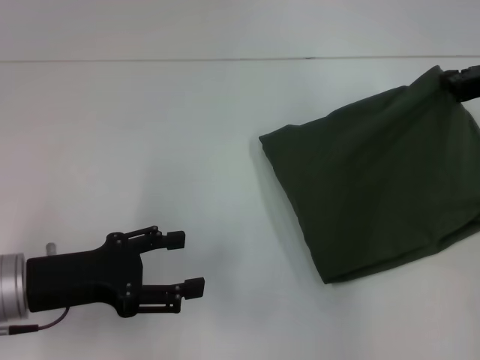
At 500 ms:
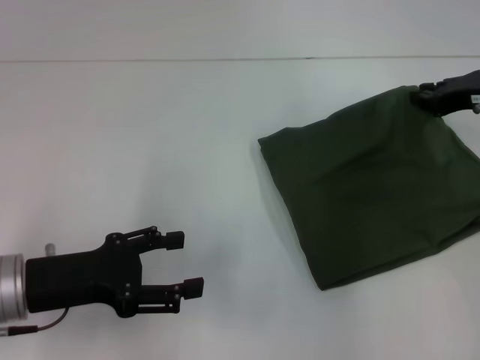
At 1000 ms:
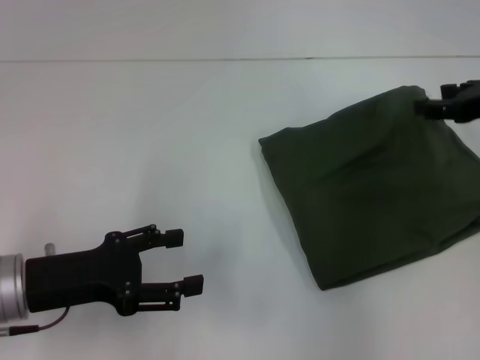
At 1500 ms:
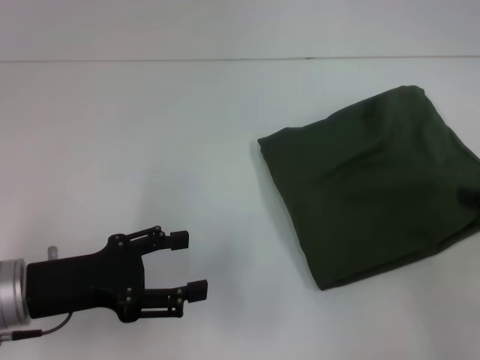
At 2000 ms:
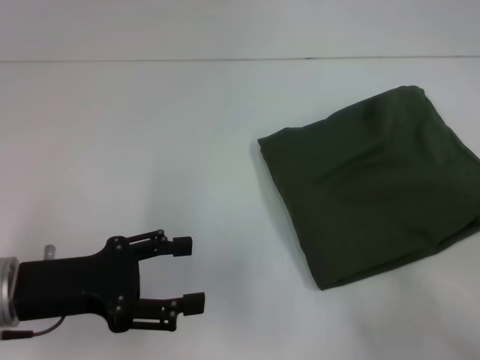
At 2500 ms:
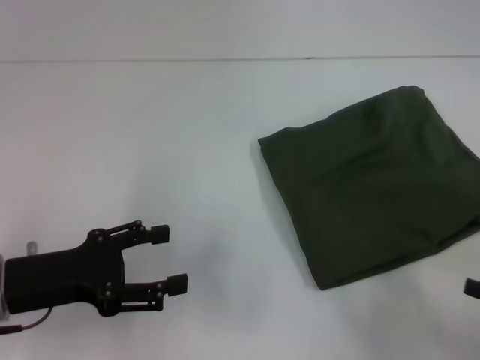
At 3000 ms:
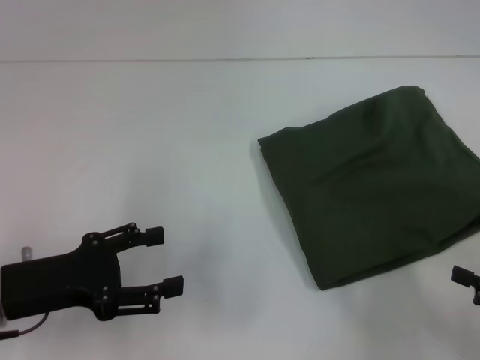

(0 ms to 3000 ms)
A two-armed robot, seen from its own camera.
0 ms - 1500 ms: The right gripper heads backward, covering roughly 15 cm, and opens its fingers.
1500 ms - 3000 ms: The right gripper heads backward and downward, covering roughly 10 cm.
